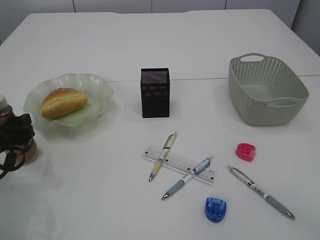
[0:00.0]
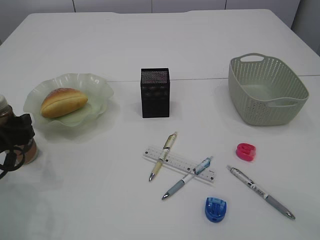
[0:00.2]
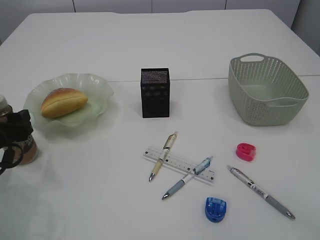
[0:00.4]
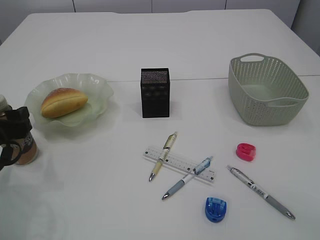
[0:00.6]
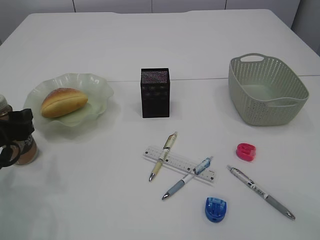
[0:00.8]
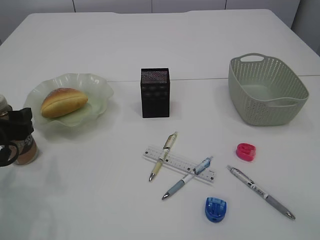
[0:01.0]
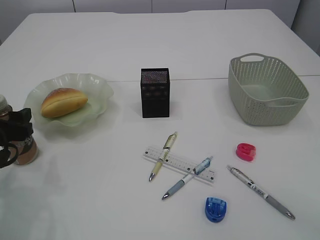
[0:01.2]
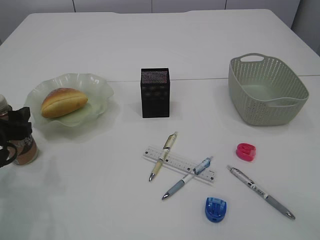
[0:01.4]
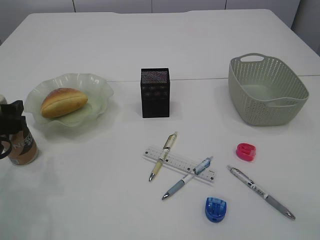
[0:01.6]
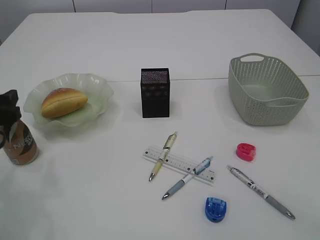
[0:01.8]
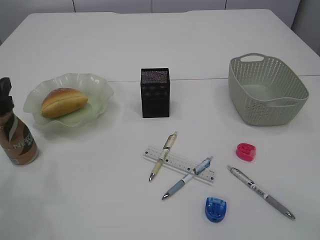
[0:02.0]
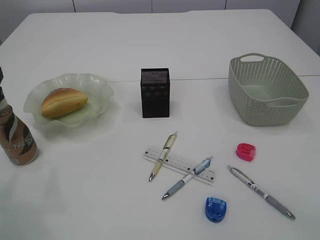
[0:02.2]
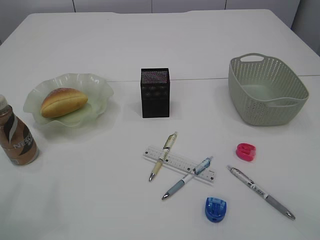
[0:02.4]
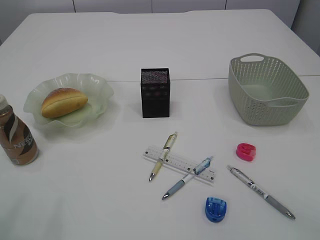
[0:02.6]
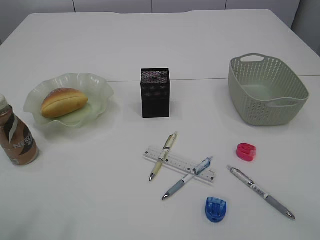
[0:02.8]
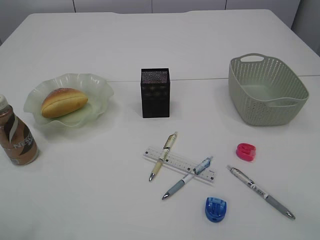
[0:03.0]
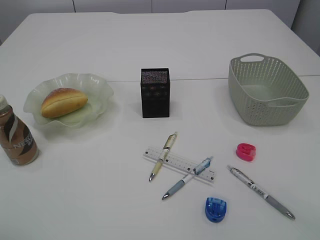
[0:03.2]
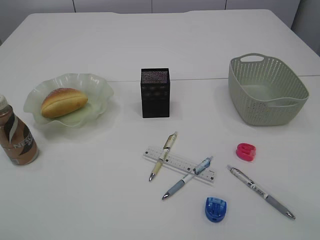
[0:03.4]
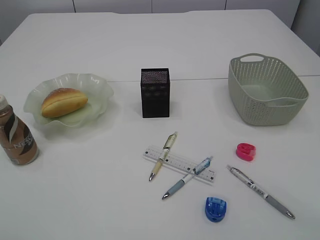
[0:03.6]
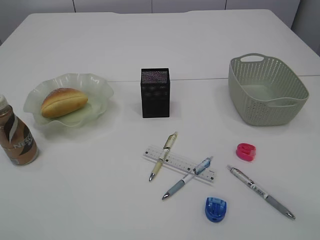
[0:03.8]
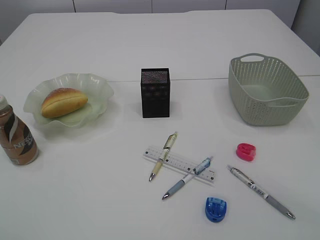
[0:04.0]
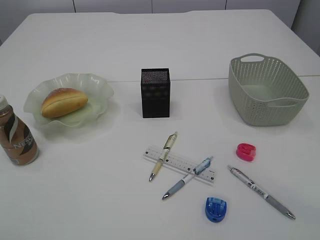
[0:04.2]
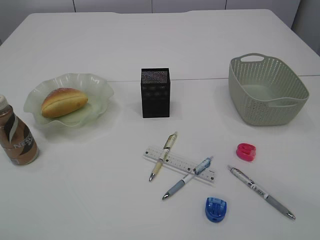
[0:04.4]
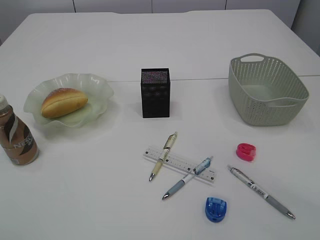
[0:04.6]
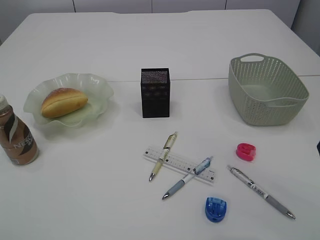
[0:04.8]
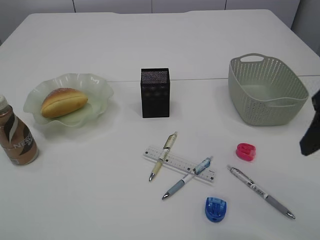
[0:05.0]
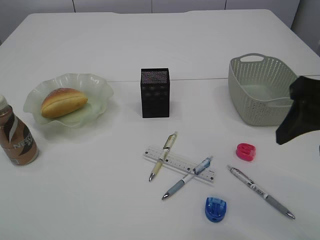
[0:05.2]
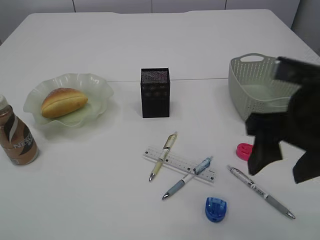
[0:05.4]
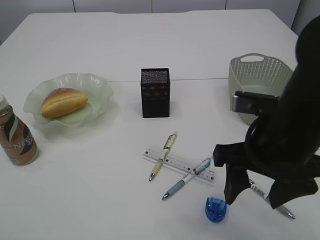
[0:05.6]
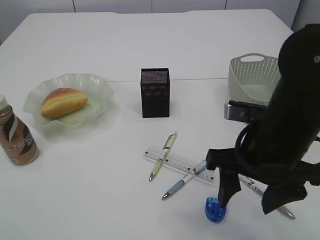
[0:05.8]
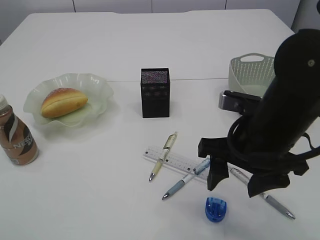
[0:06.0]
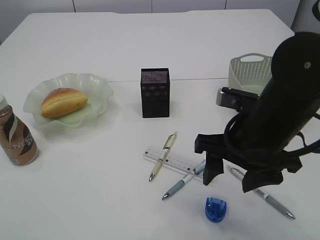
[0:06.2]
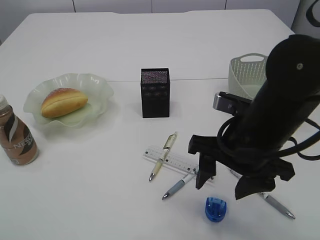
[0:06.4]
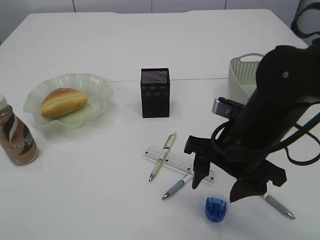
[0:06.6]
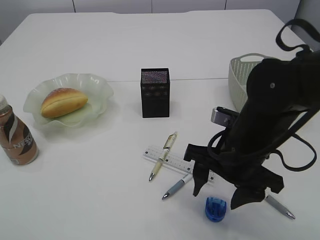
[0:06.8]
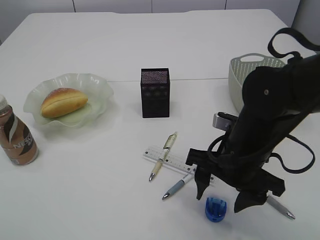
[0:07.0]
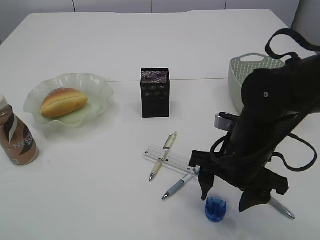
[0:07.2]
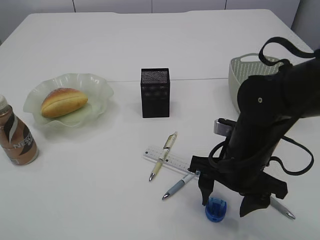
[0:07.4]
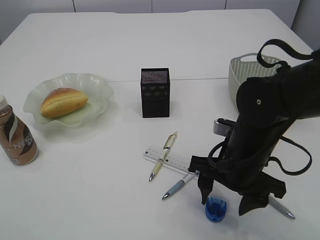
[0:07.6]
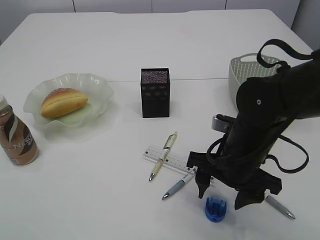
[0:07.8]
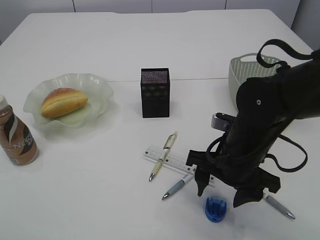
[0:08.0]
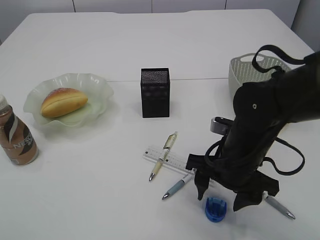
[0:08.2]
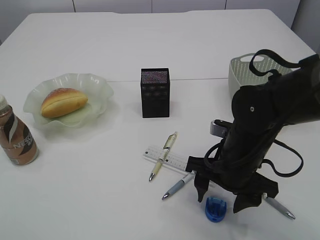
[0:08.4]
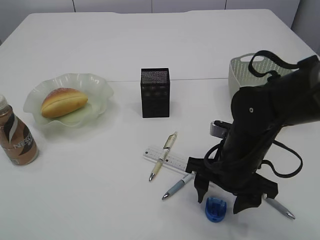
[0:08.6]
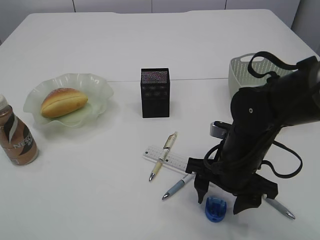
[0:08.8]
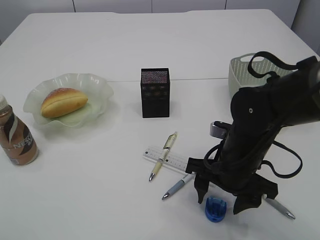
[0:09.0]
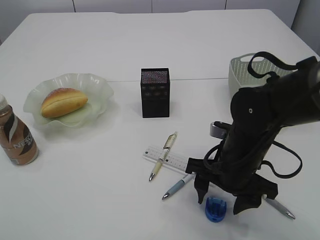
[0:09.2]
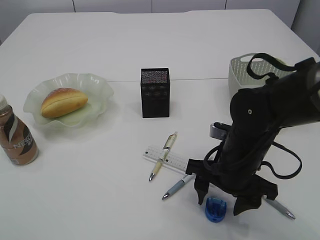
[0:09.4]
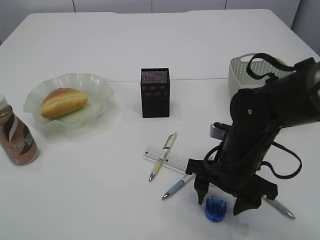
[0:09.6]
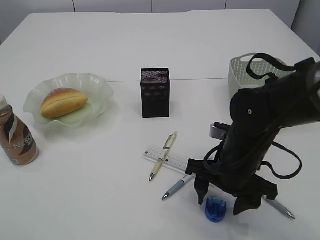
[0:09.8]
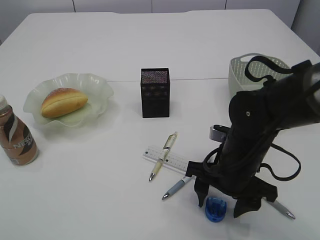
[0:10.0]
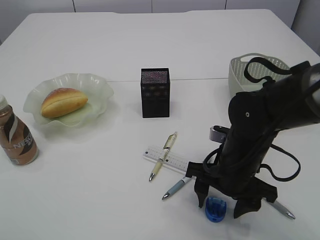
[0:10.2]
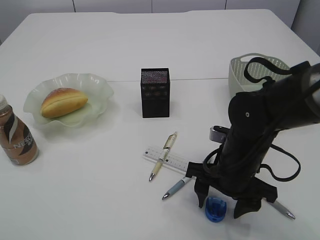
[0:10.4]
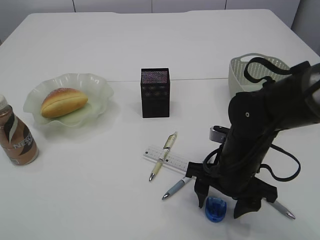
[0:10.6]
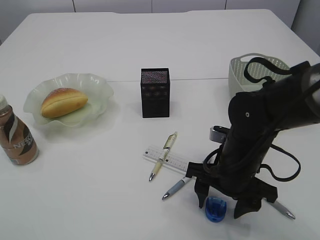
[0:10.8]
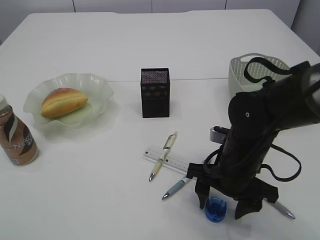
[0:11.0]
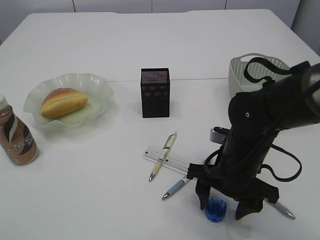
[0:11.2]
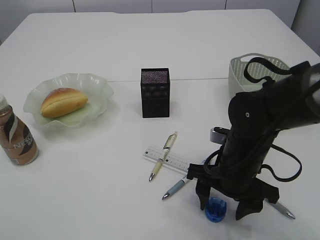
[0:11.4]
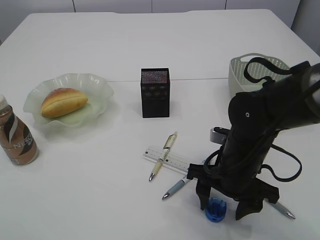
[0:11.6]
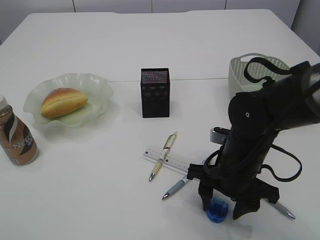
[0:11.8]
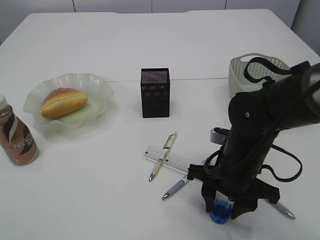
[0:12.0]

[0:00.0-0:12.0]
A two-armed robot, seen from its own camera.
0:00.0 to 0:01.6: The grippers move only a little.
0:01.6 to 0:03.0: The left gripper shifts approximately 20 cm upward and backward.
0:04.4 to 0:06.0: The right gripper shifts roughly 20 cm to the left, downward and forward.
0:06.0 to 0:07.6: The right gripper is displaced downward by roughly 5 cm.
0:07.6 to 0:09.0: The grippers make only small movements.
0:09.0 to 0:12.0: Neither gripper changes place.

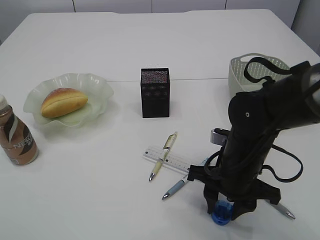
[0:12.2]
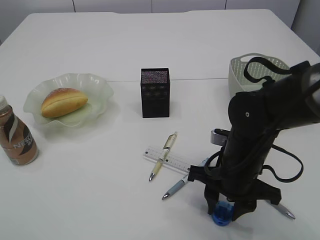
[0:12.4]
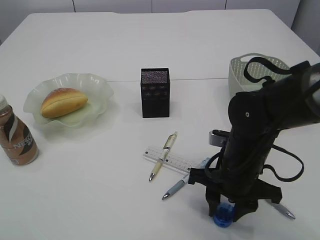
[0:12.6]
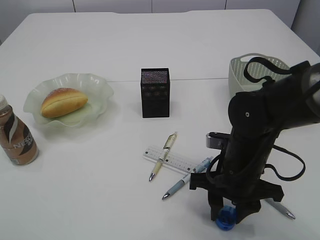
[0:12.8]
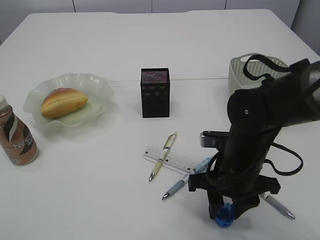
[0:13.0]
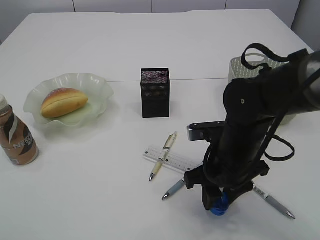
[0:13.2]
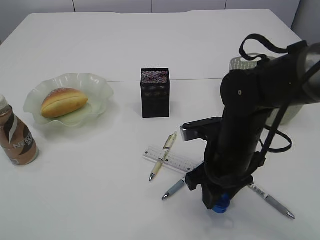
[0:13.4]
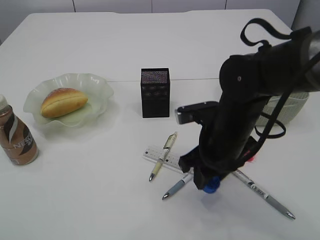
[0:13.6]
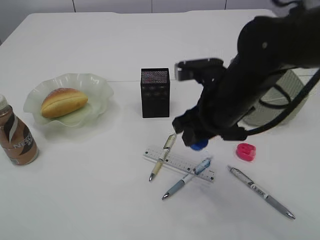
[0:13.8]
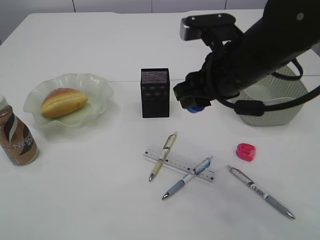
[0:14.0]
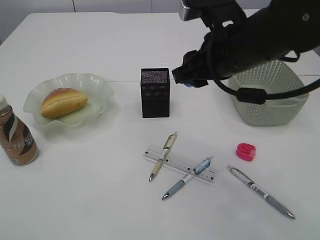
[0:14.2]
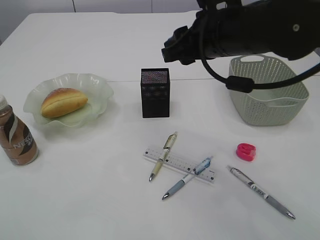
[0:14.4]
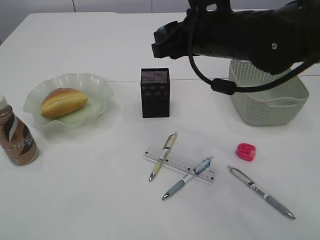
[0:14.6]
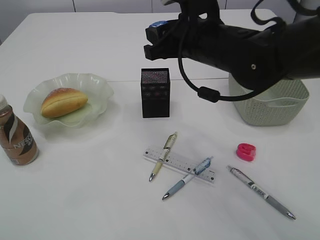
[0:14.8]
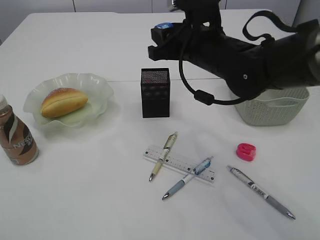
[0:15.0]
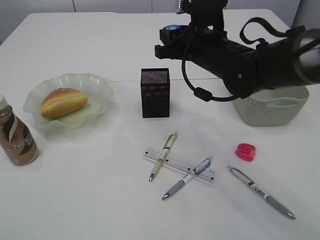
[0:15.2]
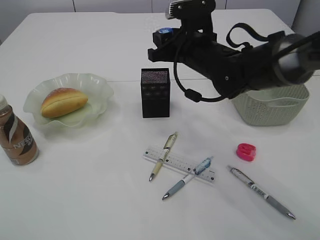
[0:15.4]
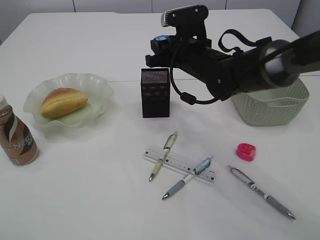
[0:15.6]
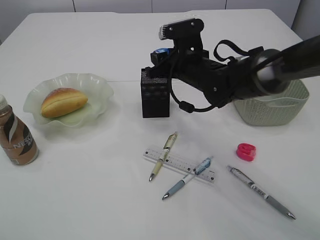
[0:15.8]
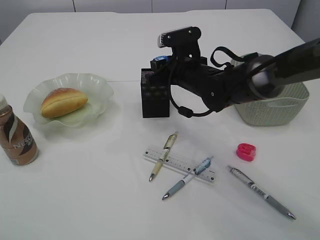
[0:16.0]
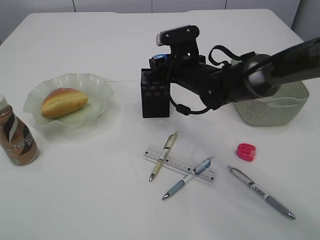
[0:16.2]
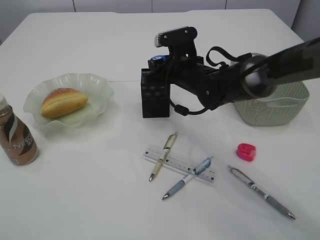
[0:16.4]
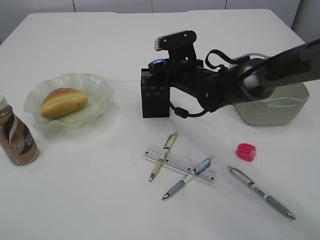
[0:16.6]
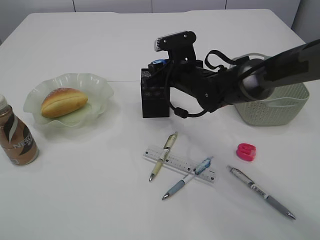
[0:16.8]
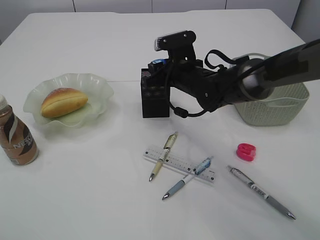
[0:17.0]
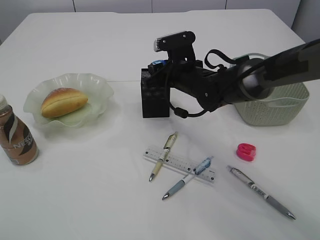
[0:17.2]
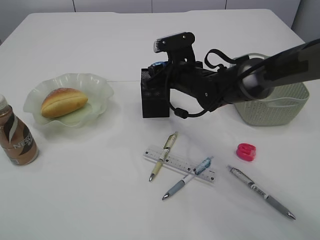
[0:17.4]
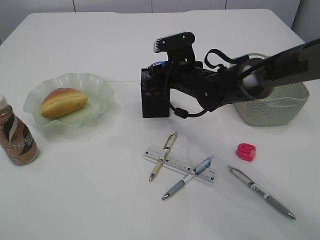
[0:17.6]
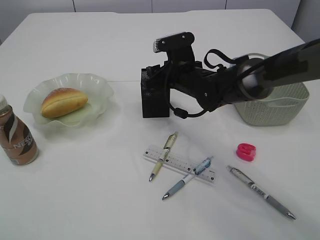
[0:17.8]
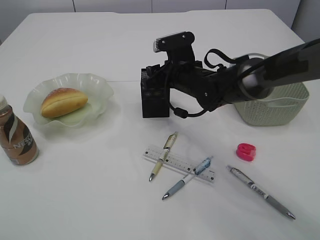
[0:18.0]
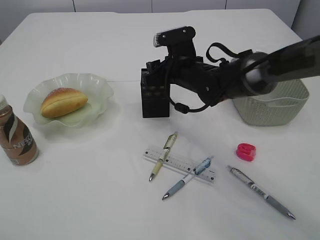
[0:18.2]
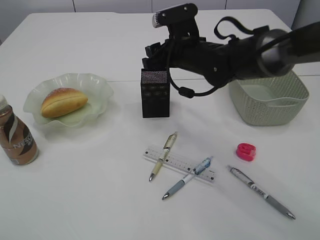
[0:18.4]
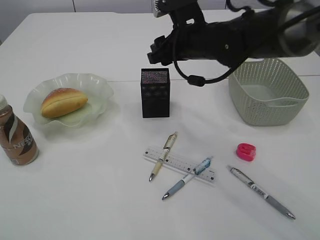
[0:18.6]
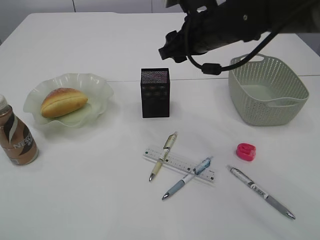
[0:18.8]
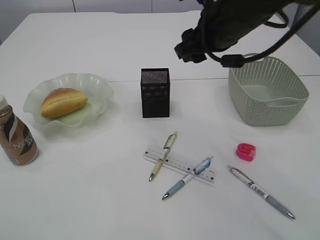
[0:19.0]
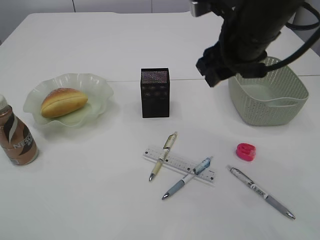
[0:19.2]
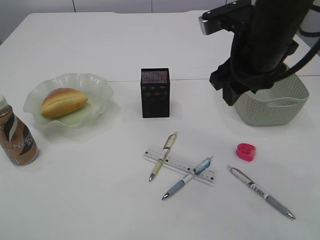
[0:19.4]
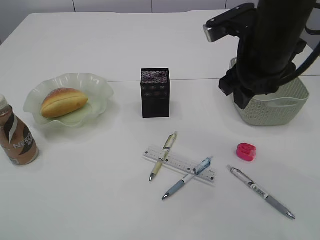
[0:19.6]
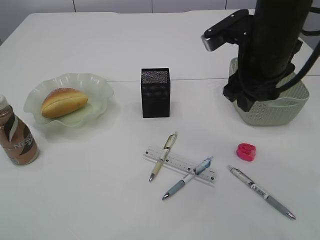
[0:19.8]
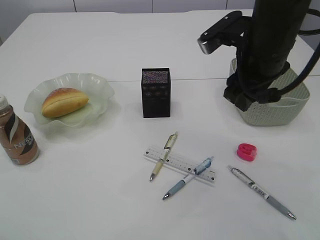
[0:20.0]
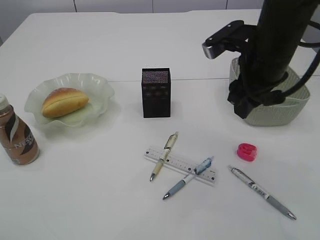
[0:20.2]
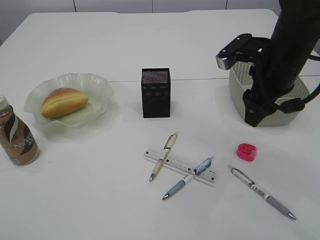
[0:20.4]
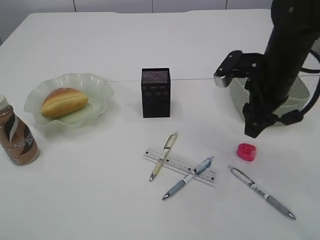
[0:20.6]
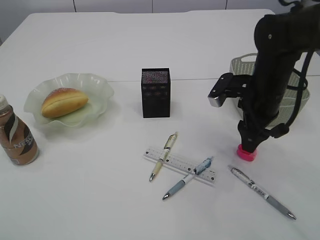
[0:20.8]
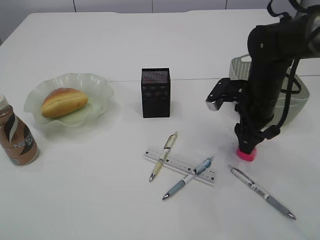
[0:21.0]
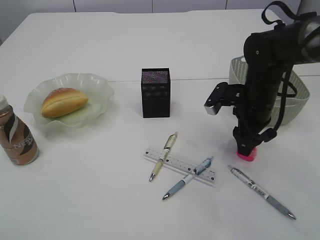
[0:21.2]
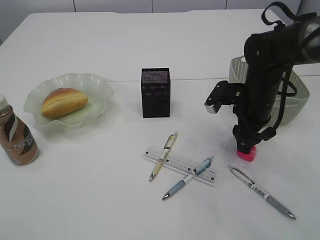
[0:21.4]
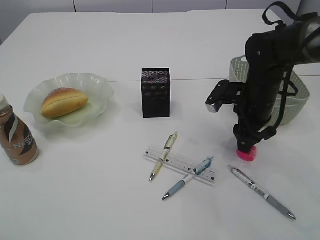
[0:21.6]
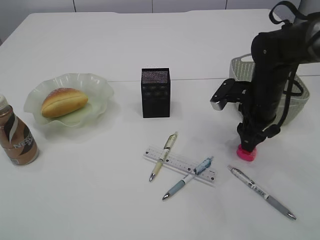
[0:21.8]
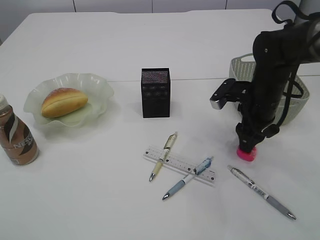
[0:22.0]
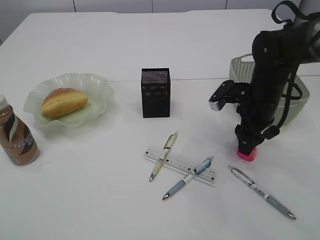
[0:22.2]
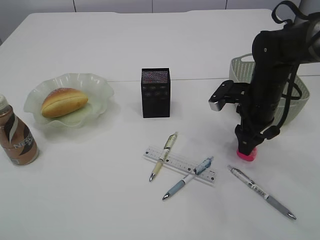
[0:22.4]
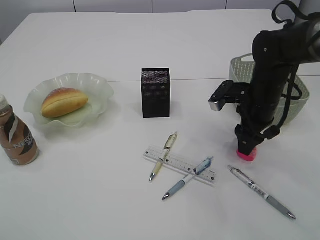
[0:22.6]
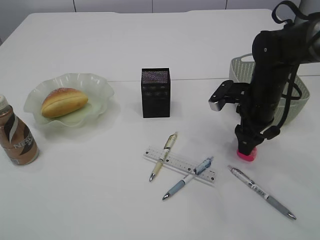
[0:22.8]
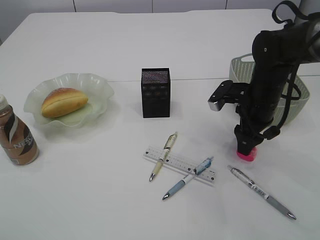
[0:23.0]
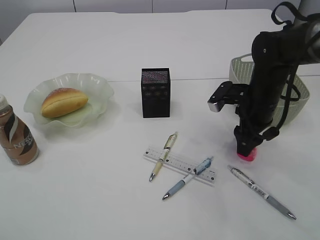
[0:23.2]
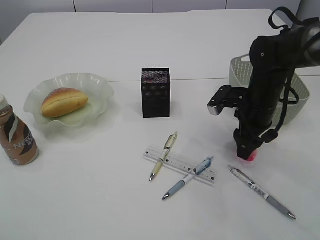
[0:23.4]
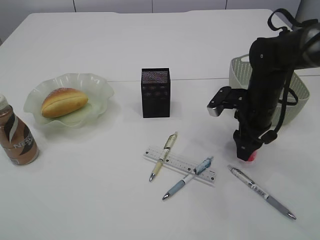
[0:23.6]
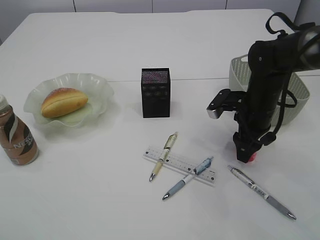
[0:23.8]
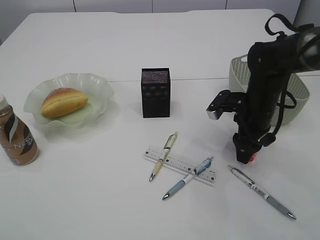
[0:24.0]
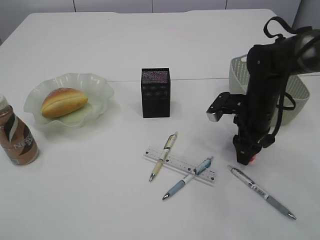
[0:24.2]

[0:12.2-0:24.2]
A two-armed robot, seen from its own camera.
Step, 0:13.8 to 0:18.6: Place the blue pencil sharpener into the pen holder.
0:12.2 to 0:13.8: The right gripper heads upward, covering roughly 10 cm.
0:13.8 to 0:15.2: The right gripper goes about 10 cm forward.
0:15.2 to 0:16.6: The right gripper goes roughly 10 cm downward.
0:16.6 to 0:18.2: The two grippers keep their place.
0:18.2 to 0:19.8: The right gripper shifts some 20 cm upward, backward and to the right.
0:19.8 to 0:21.2: The right gripper travels downward and forward by approximately 15 cm.
0:21.2 to 0:24.2: The grippers move only a little.
